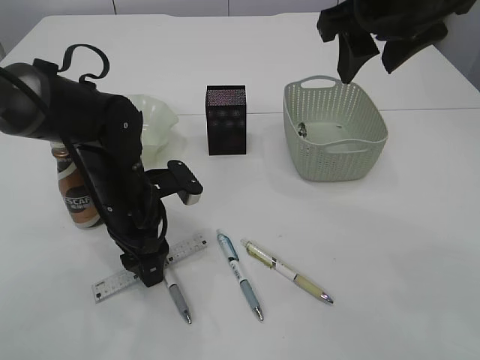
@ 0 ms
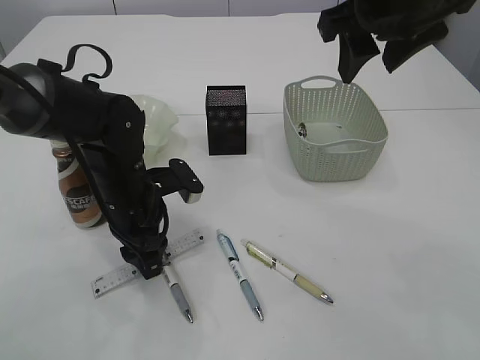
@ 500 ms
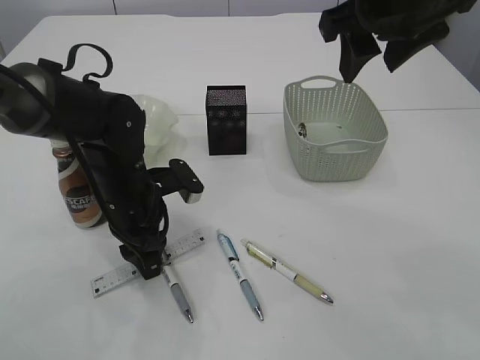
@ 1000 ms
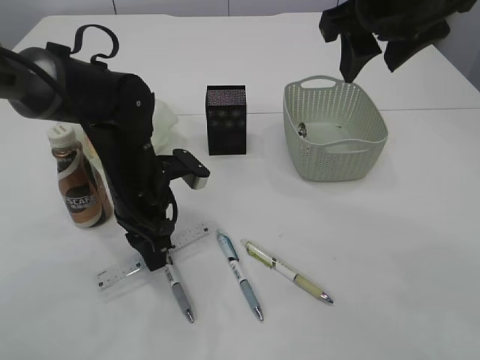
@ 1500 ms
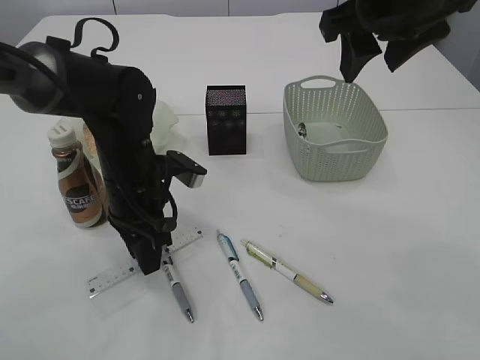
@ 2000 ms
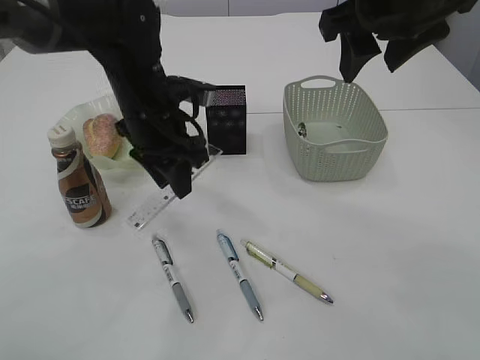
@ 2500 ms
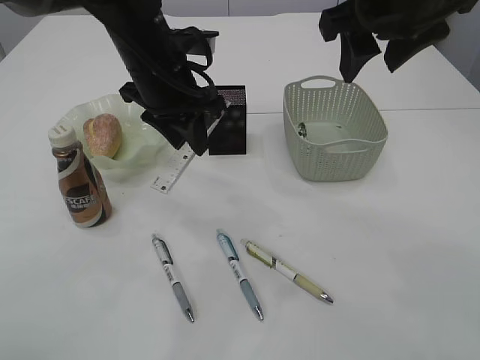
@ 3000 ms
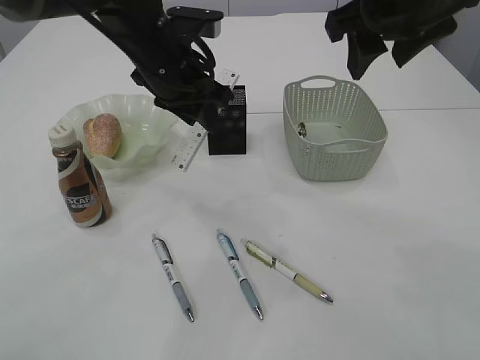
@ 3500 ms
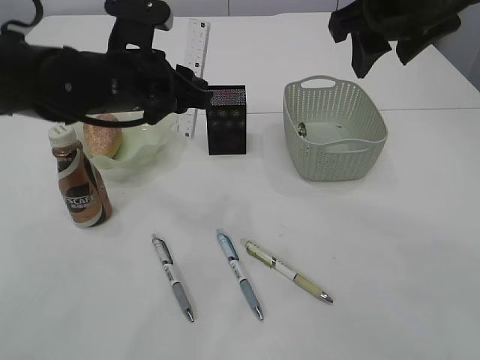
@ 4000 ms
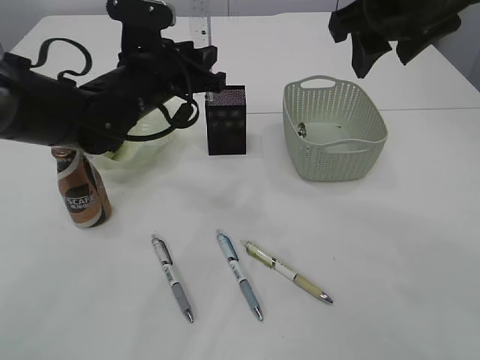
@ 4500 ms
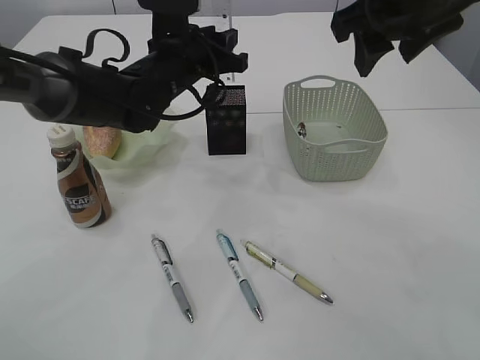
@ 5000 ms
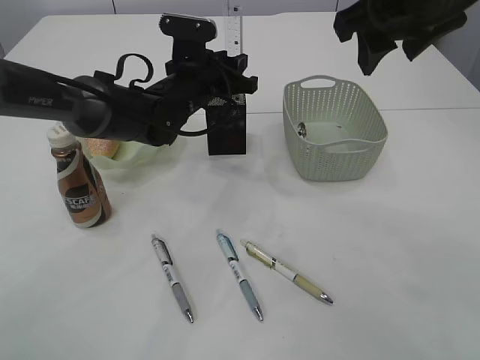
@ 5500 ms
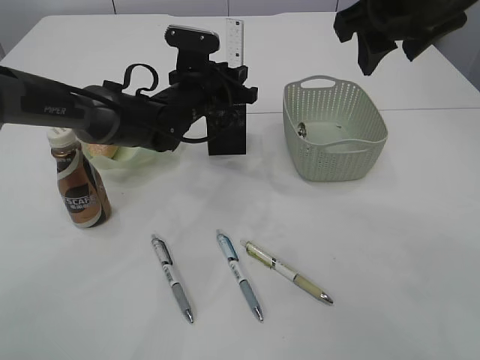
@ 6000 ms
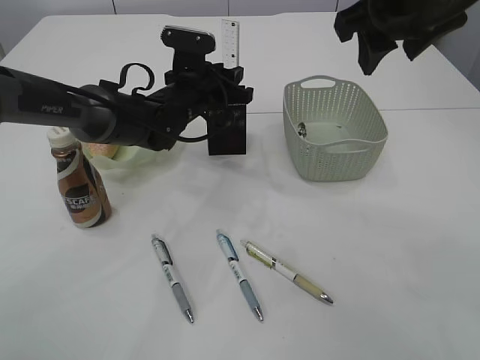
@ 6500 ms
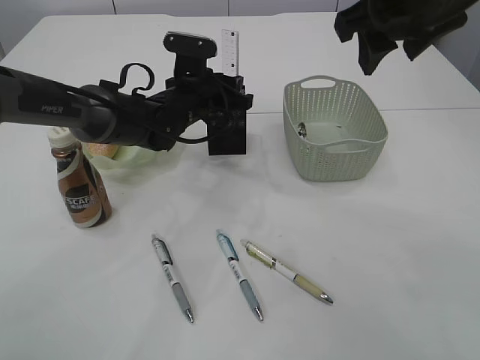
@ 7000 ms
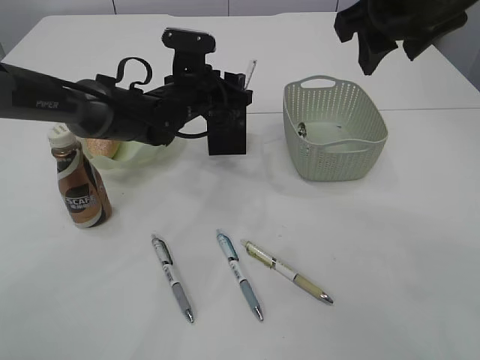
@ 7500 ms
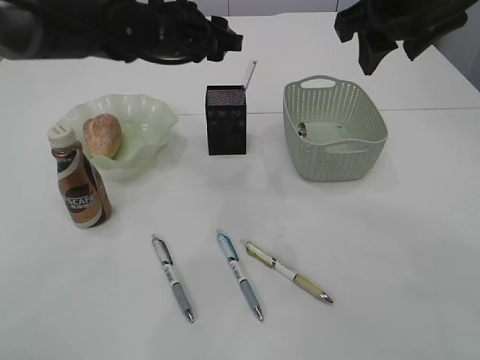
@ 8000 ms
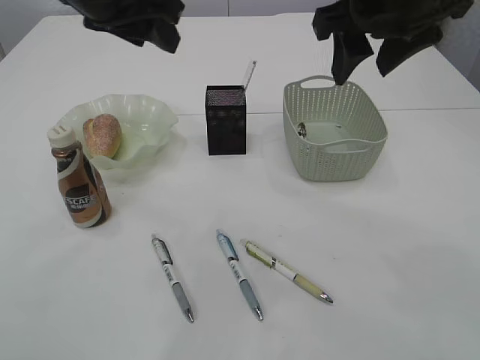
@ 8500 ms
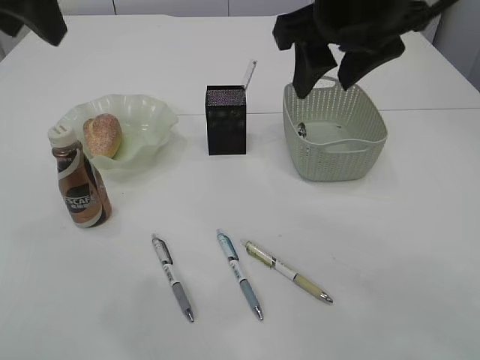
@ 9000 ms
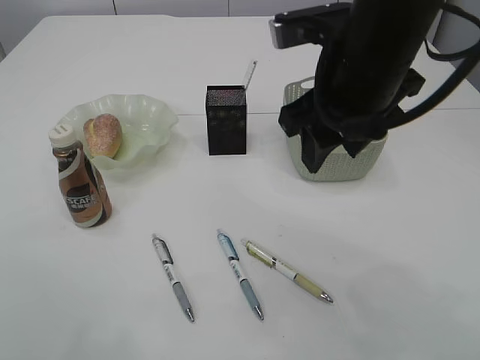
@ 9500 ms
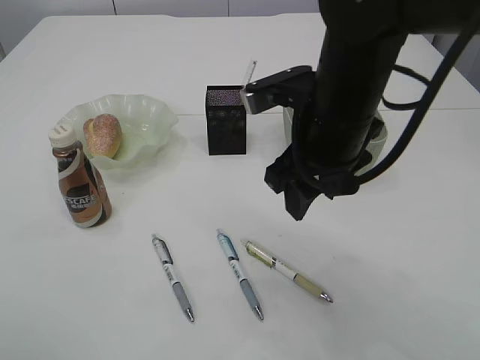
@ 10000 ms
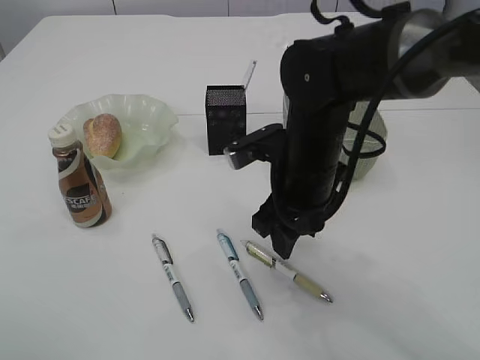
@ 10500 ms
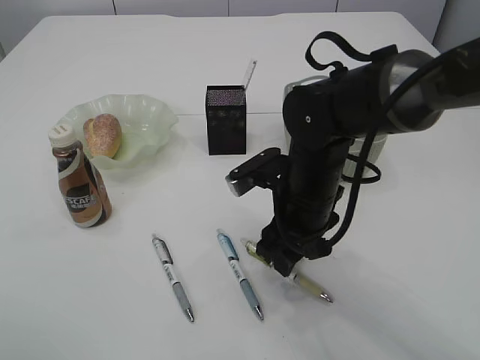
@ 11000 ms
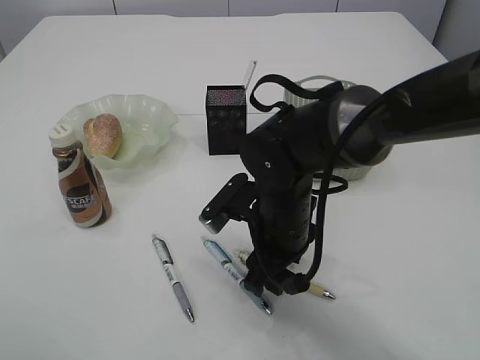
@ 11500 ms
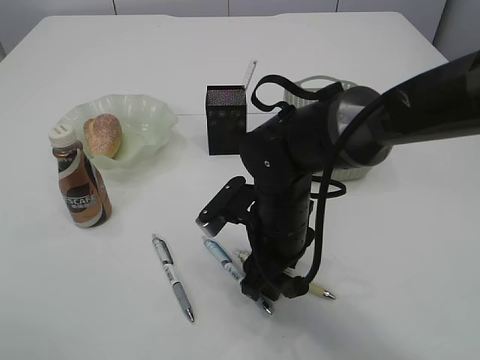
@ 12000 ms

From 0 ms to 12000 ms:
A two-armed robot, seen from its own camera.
Step, from 0 ms to 2000 ms: pick up the ruler.
Step, from 2500 ms to 7500 ms: Place the ruler into the pen holder.
From 0 ms to 2000 ms: The left gripper closes its fingers.
From 2000 ms to 4000 ms: The left gripper shifts some 10 cm upward.
From 4000 ms to 6000 ms: The left gripper travels forward and downward by some 15 cm.
From 6000 ms to 8000 ms: The left gripper is displaced upward by about 10 cm.
From 8000 ms to 10000 ms: The left gripper goes roughly 35 cm backward, to the left and upward, while the right gripper shifts about 10 cm downward and to the left.
From 10000 ms to 12000 ms: The right gripper shifts approximately 15 cm downward.

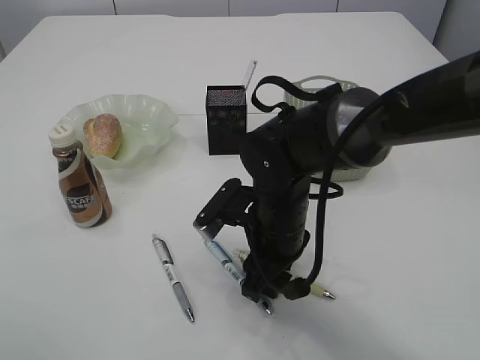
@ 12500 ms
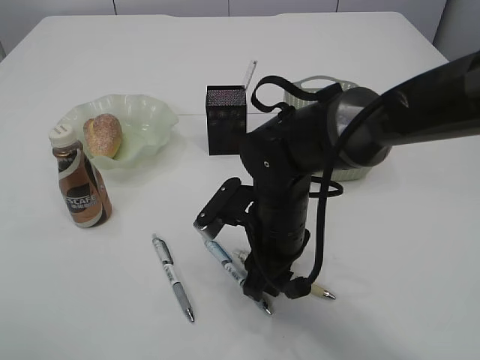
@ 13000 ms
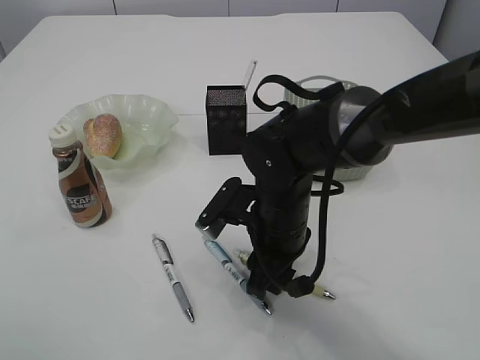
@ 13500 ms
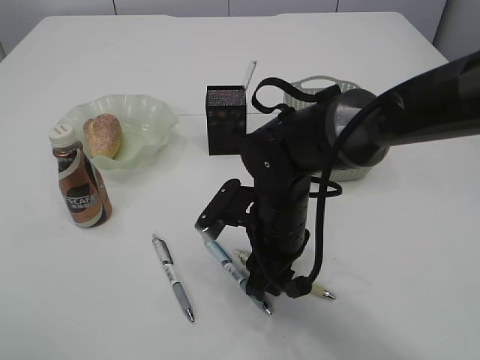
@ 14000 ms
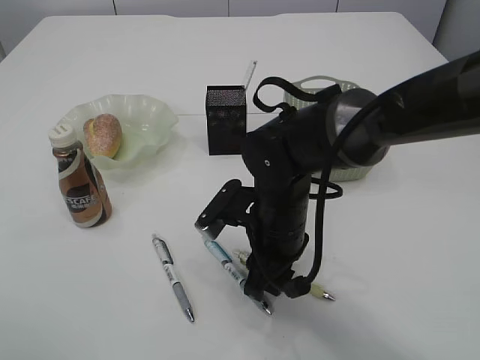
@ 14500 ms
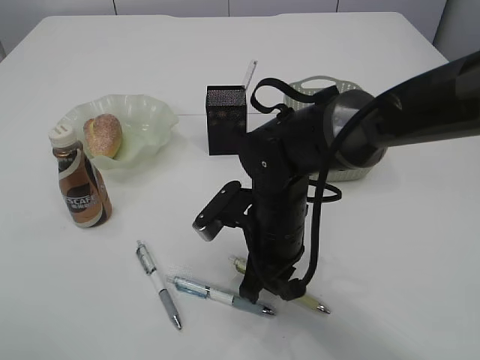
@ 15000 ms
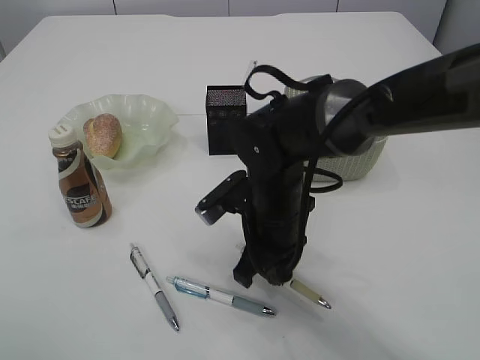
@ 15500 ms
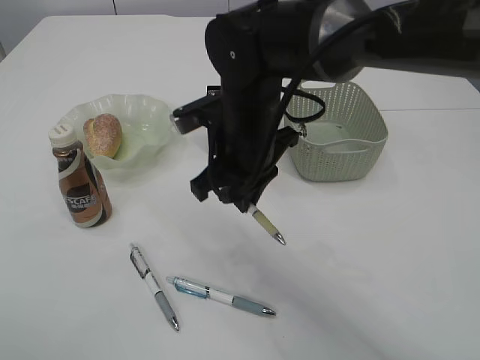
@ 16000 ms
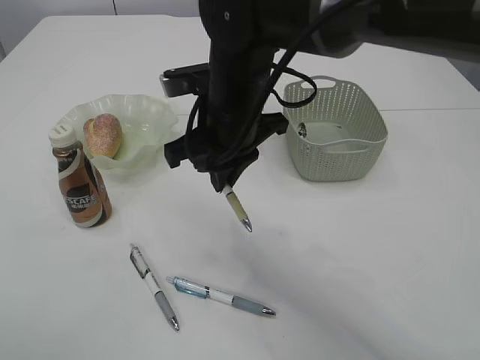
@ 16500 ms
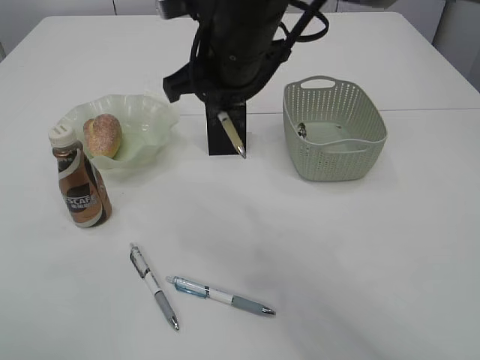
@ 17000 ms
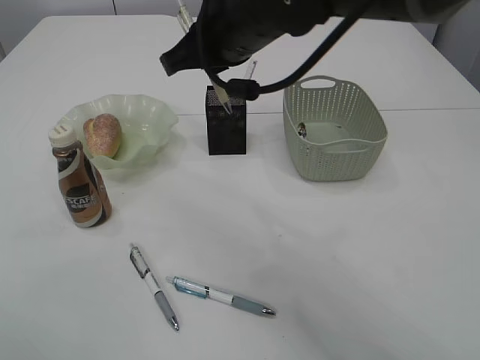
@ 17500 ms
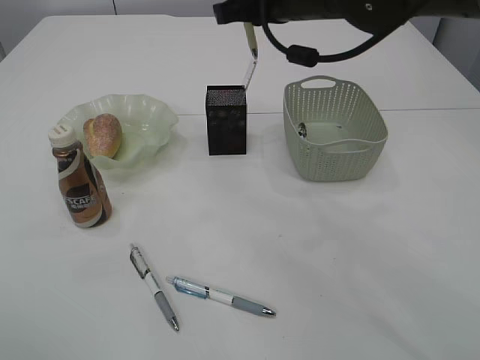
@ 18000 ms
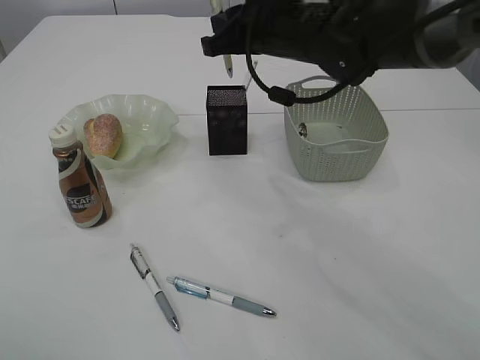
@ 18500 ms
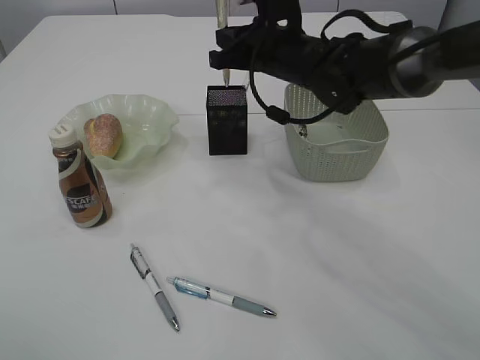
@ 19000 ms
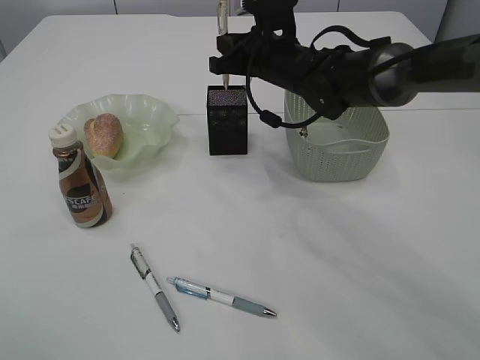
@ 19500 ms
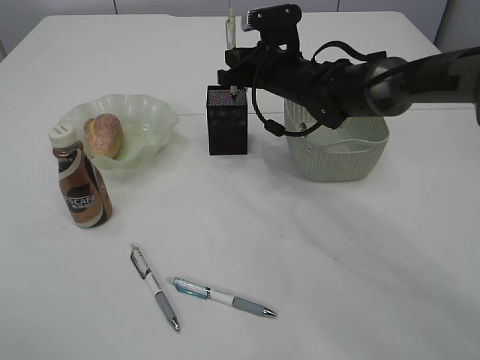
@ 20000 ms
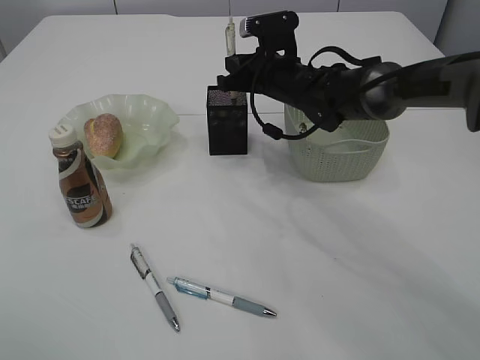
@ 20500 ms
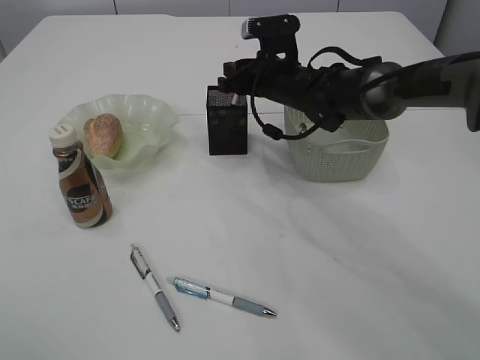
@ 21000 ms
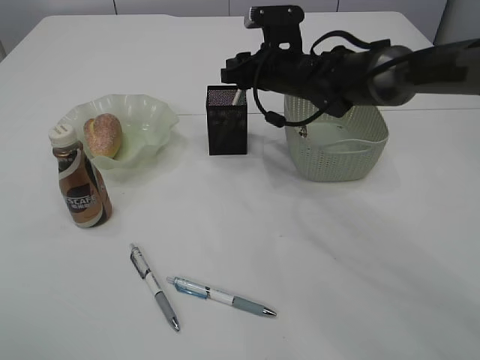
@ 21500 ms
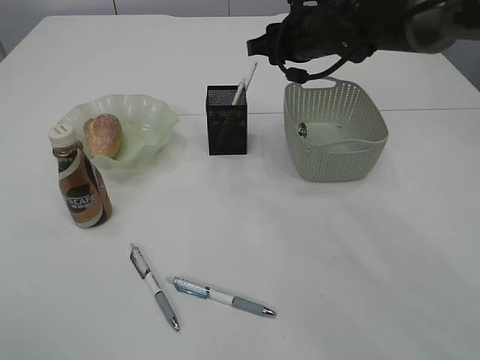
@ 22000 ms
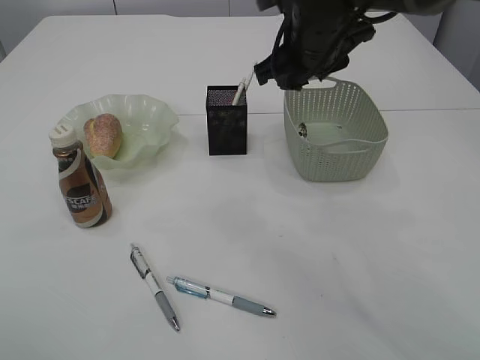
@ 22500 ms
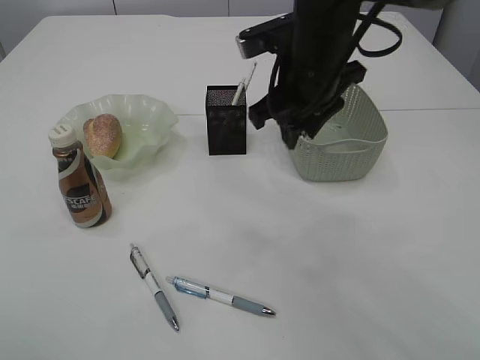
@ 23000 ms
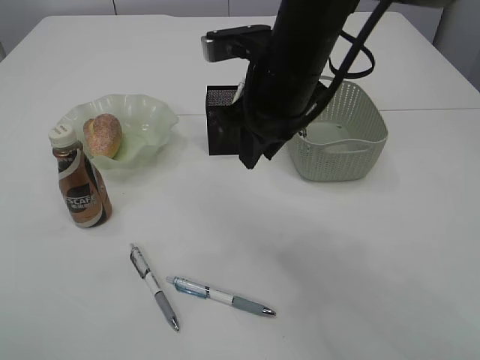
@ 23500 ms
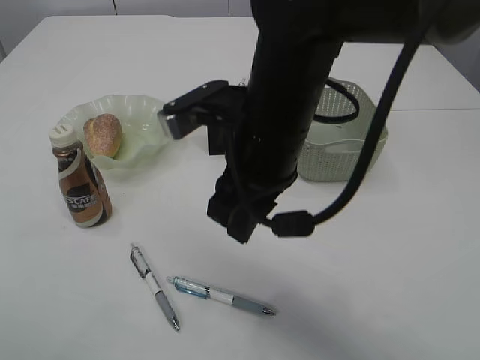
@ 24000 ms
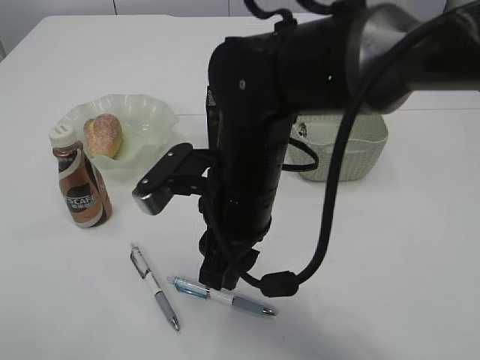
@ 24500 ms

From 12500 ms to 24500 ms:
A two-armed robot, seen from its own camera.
Step, from 12500 ms to 15500 ms: Pick up the pen with right arm.
Step, from 16000 ms to 21500 ms: Place the pen into the pen holder.
From 12500 ms to 14500 ms: The two grippers keep their place.
From 14500 ms to 16500 ms: The right gripper moves upward, about 10 cm, and closes its fingers.
From 16500 ms to 18500 ms: The right gripper goes roughly 10 cm forward and to the right.
From 18500 ms to 20500 ms: The right gripper goes roughly 10 cm downward and forward.
From 20500 ms to 22500 ms: The right gripper heads upward and backward, covering about 15 cm, and opens up.
From 22500 ms to 24500 ms: The right gripper heads backward, to the left and downward, covering approximately 20 cm.

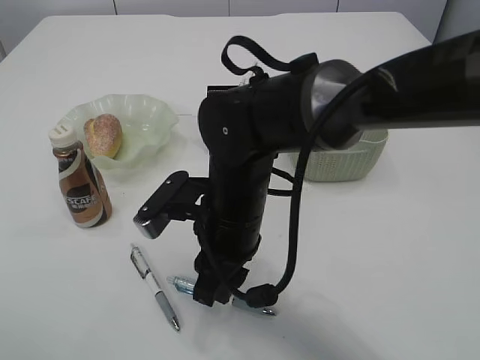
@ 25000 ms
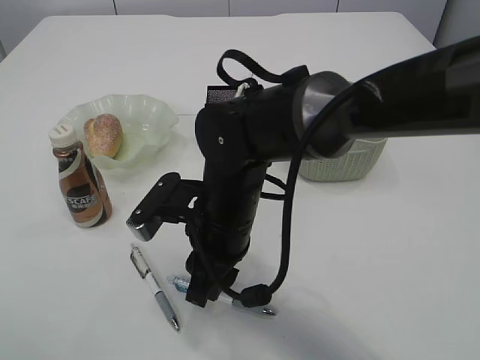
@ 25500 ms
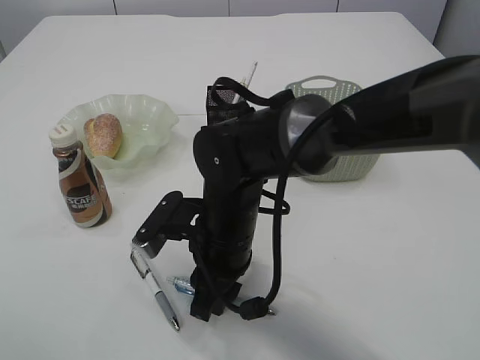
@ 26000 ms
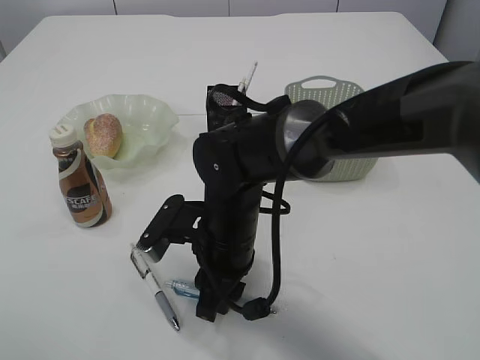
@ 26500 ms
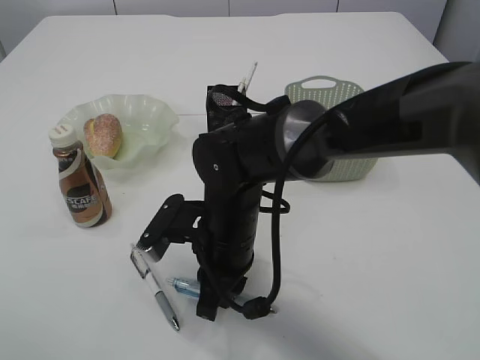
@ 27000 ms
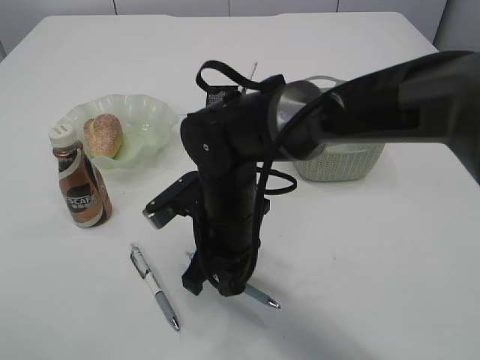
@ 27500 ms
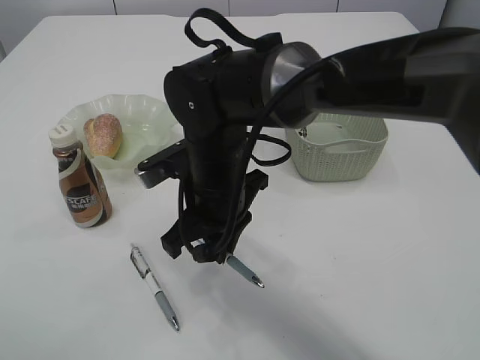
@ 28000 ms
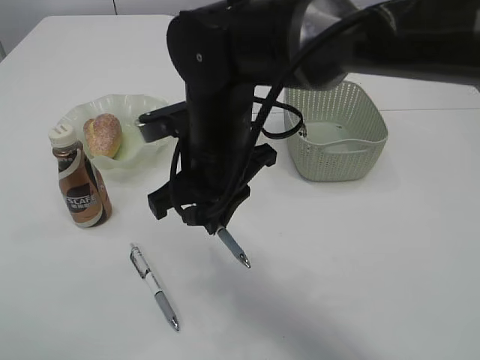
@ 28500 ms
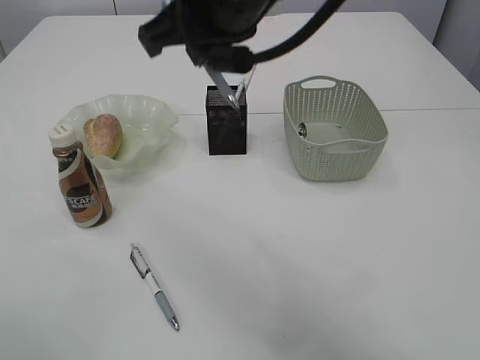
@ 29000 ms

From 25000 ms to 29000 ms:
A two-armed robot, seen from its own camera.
Step, from 25000 ms to 28500 ms: Pick up the pen with right arm.
From 25000 ms to 27000 ms: There are only small adjustments of the grippers.
From 27000 ms to 29000 ms: The right gripper moves upward, some 25 cm.
